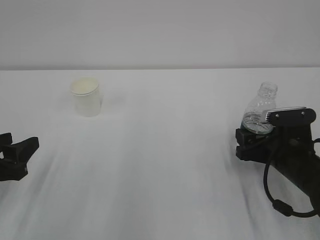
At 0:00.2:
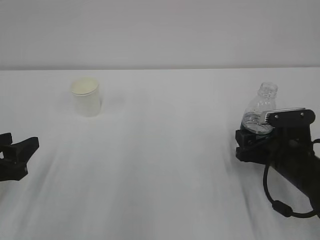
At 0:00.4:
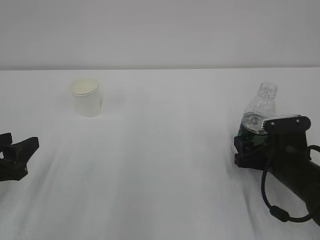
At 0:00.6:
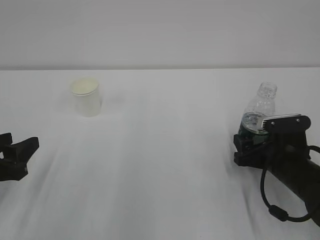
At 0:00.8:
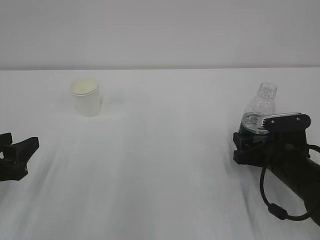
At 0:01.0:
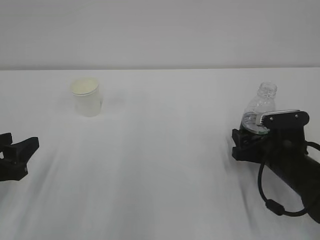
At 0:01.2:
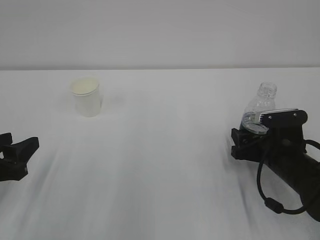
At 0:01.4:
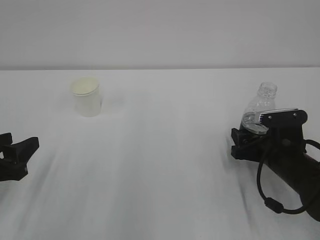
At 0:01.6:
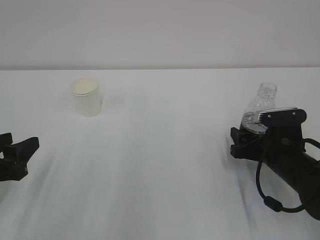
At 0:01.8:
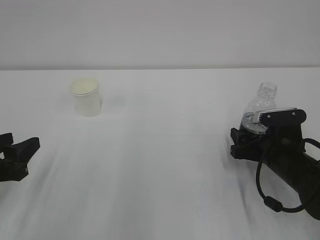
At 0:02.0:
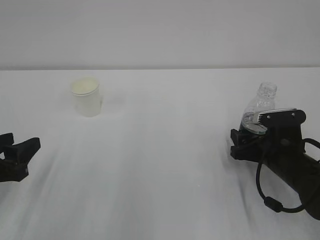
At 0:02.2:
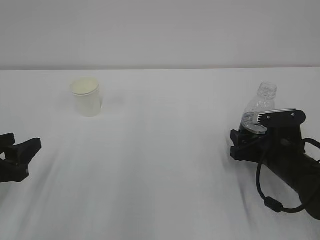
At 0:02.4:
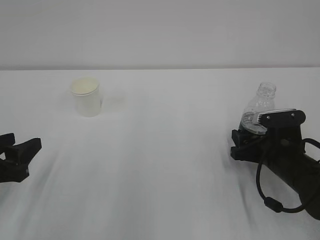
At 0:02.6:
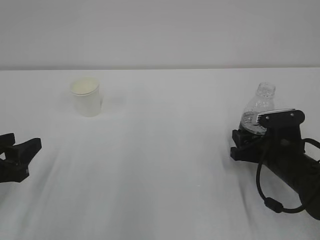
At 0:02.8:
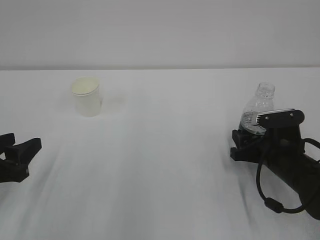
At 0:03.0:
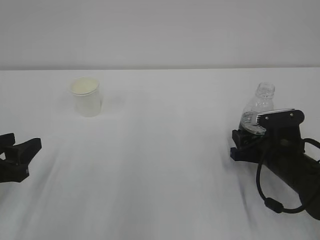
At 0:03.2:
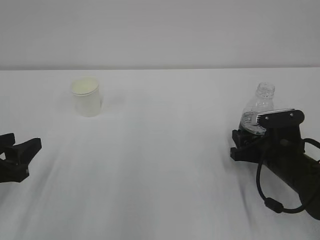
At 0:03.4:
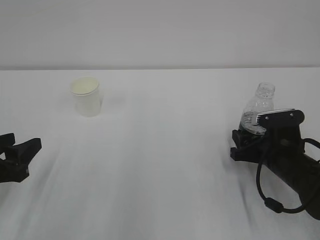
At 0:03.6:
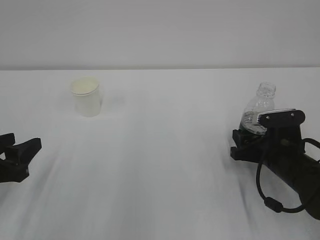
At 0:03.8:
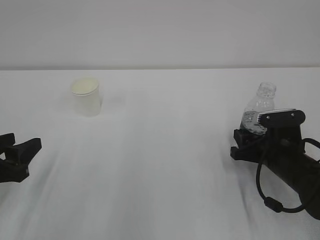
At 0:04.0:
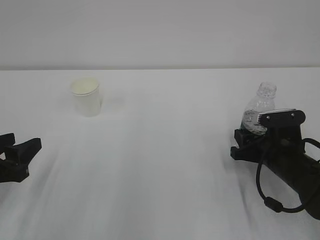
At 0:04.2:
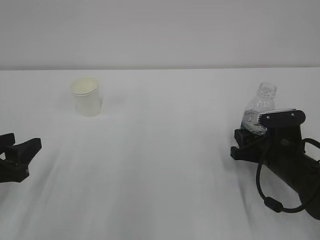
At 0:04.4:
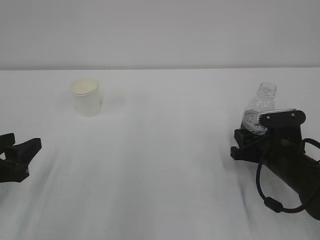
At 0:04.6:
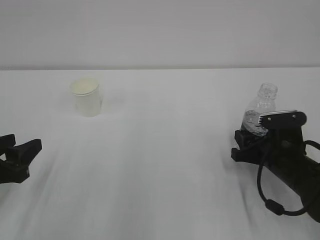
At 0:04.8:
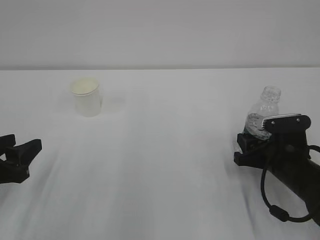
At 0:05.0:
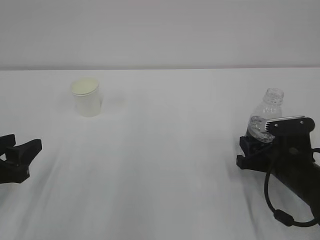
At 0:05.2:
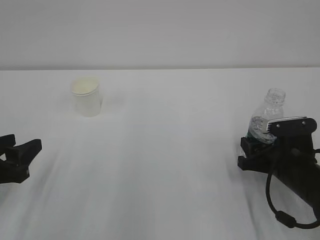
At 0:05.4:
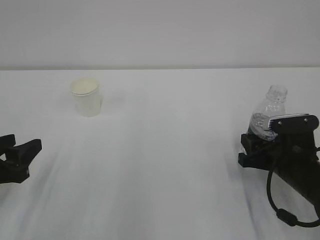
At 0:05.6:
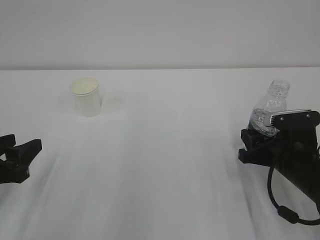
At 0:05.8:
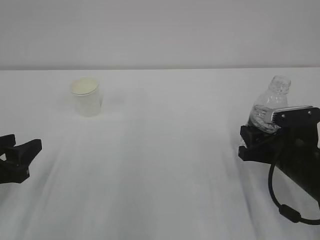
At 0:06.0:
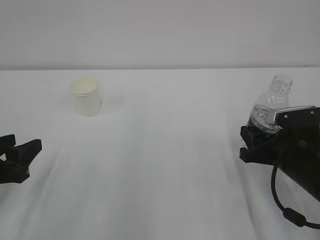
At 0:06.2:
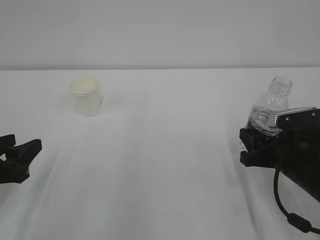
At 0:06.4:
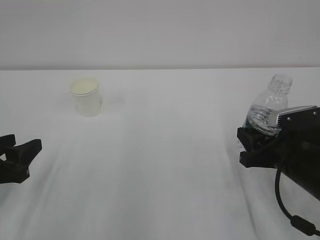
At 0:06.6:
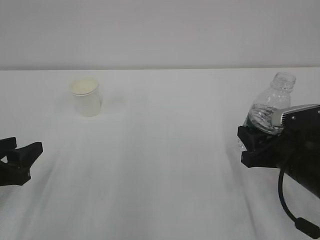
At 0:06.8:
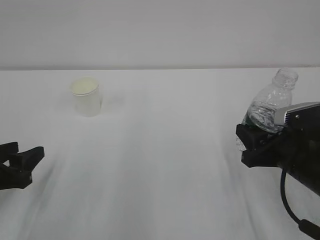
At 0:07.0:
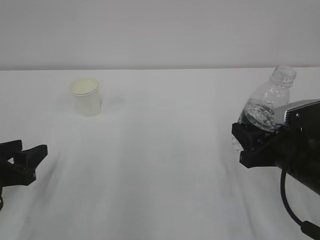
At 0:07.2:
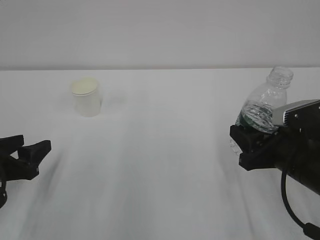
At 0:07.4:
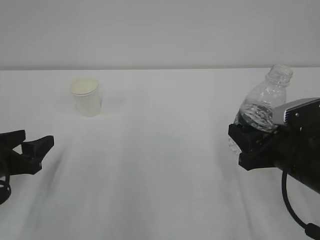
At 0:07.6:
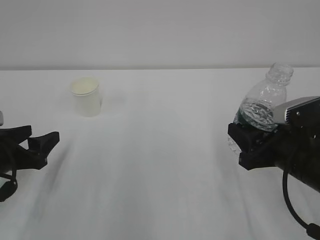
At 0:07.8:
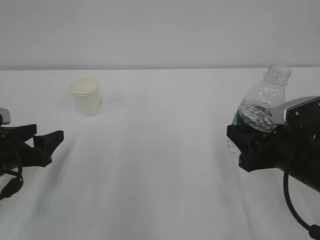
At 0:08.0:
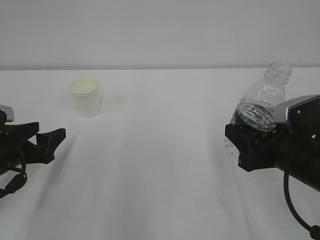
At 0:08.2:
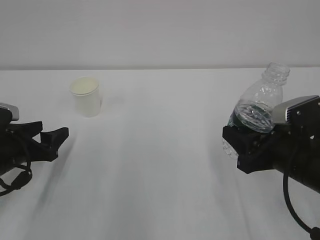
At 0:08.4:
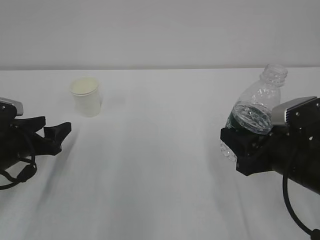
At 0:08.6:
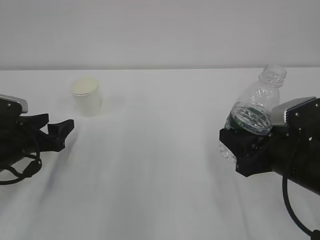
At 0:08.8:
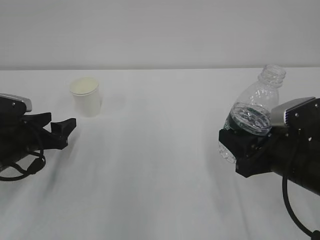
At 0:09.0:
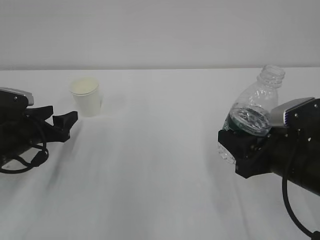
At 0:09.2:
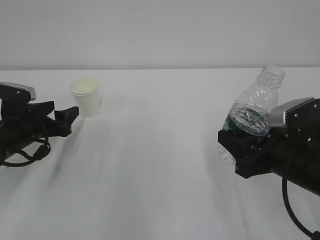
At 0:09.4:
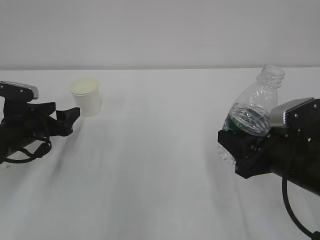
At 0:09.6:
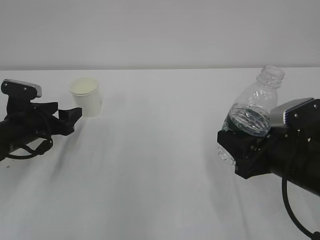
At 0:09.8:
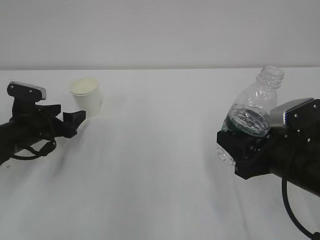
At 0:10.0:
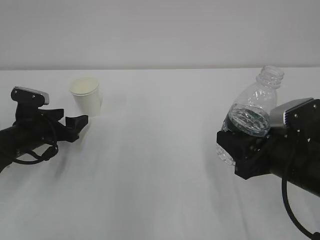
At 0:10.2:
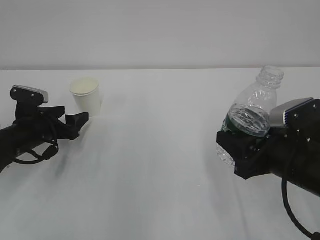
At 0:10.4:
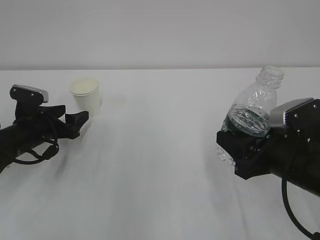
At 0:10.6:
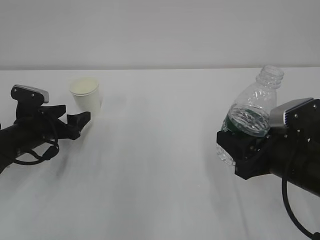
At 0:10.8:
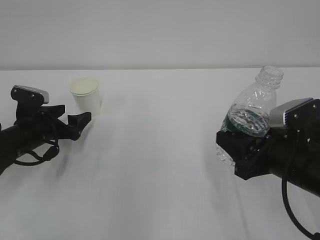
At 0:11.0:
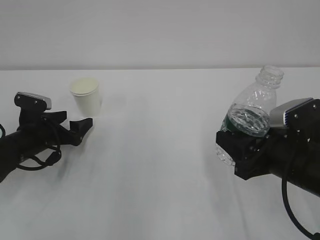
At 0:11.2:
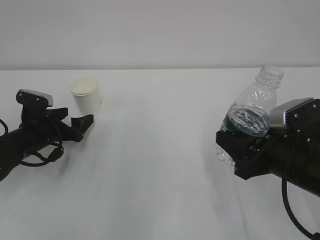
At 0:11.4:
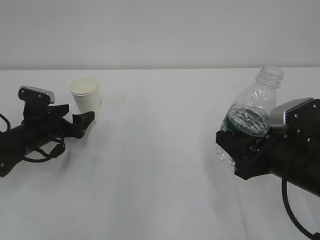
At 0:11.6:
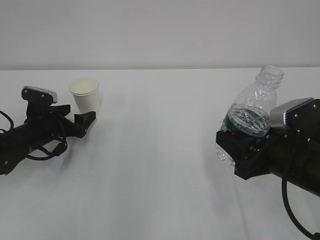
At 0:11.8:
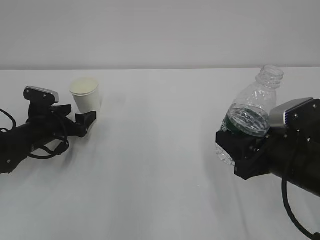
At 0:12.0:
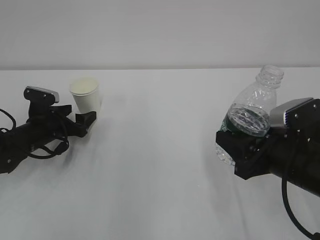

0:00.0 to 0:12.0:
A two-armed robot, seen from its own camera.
0:00.0 to 0:01.6: The grippers move only a little.
0:01.6 to 0:03.0: The right gripper closes its fingers.
0:03.0 to 0:04.4: Neither gripper changes place.
0:04.4 to 0:06.0: The grippers stay close to where they were, moving slightly.
0:06.0 to 0:07.6: The left gripper opens up, while the right gripper moves some 5 cm.
0:07.6 to 0:09.0: The left gripper goes approximately 10 cm forward.
0:09.0 to 0:10.4: The grippers stay close to where they were, moving slightly.
0:10.4 to 0:12.0: The grippers make only small movements.

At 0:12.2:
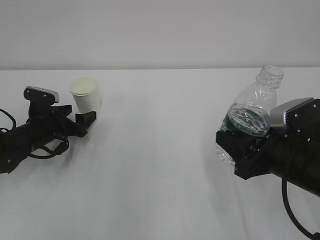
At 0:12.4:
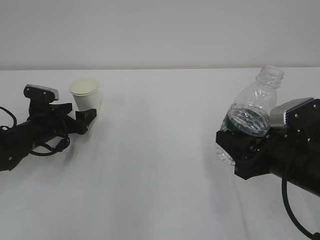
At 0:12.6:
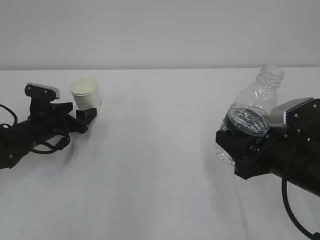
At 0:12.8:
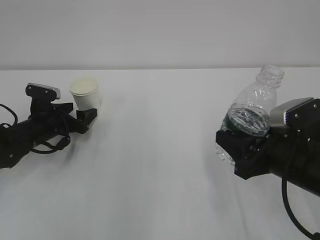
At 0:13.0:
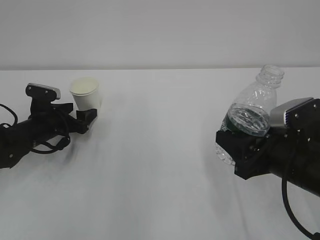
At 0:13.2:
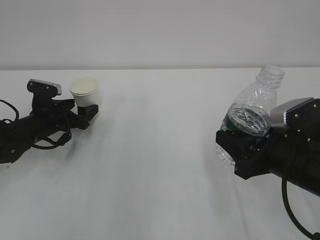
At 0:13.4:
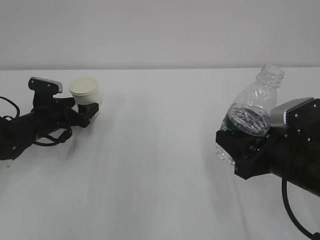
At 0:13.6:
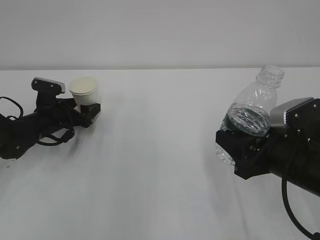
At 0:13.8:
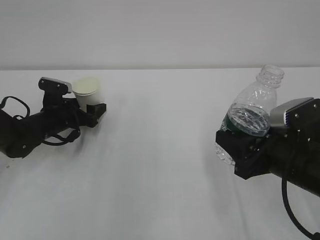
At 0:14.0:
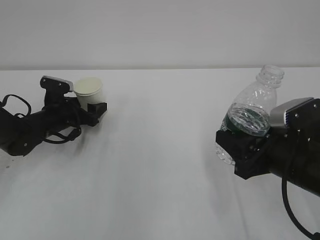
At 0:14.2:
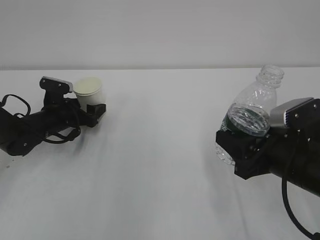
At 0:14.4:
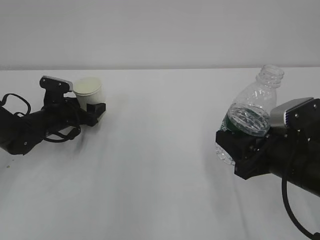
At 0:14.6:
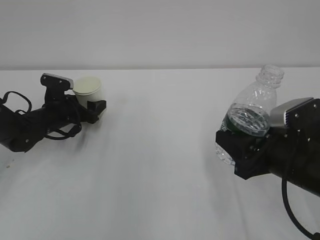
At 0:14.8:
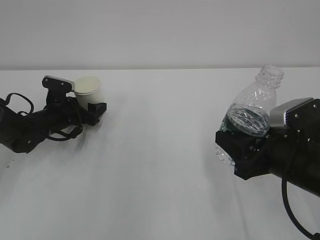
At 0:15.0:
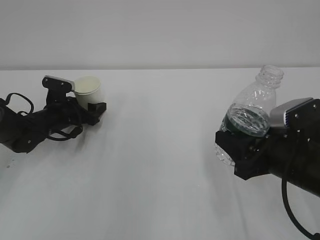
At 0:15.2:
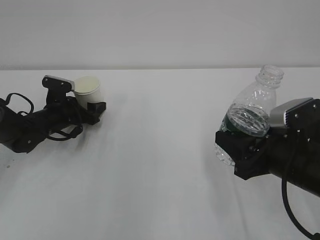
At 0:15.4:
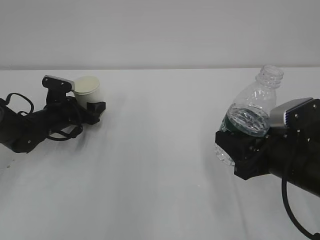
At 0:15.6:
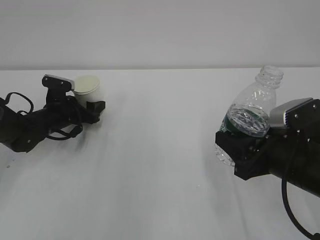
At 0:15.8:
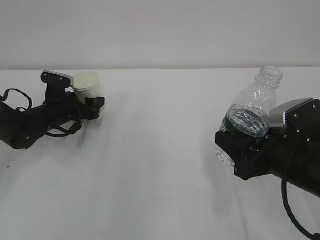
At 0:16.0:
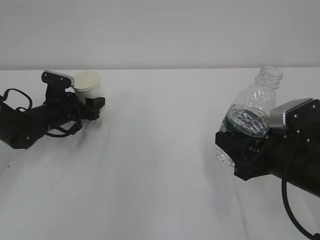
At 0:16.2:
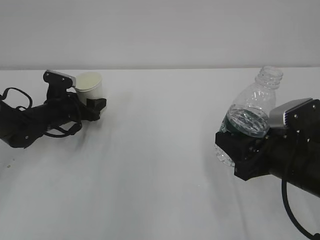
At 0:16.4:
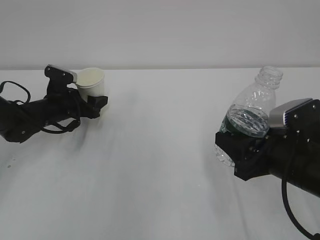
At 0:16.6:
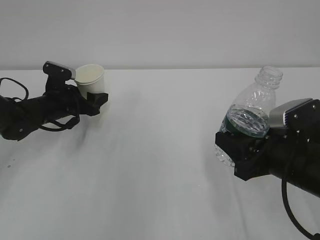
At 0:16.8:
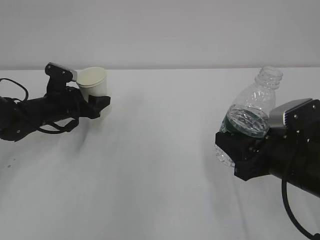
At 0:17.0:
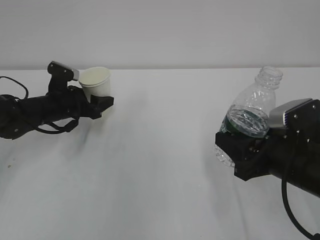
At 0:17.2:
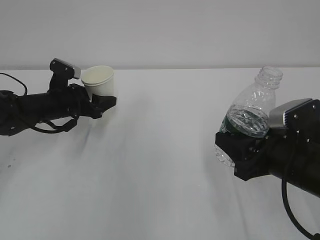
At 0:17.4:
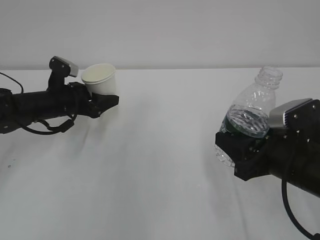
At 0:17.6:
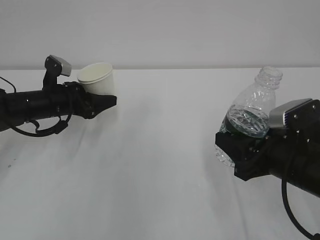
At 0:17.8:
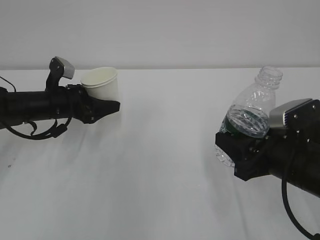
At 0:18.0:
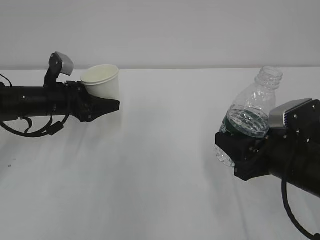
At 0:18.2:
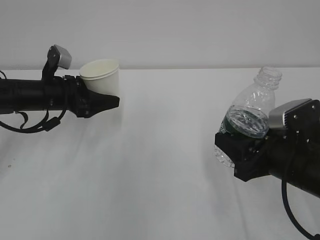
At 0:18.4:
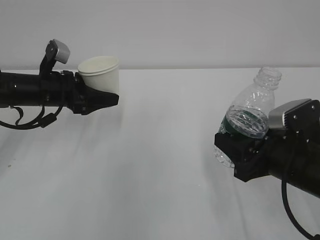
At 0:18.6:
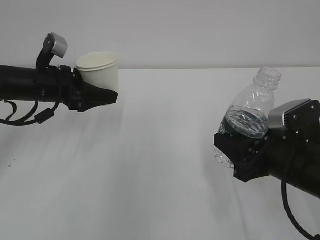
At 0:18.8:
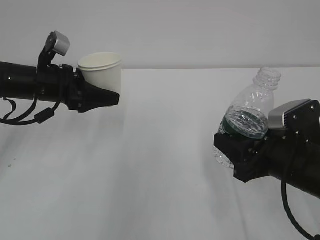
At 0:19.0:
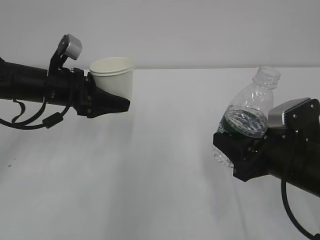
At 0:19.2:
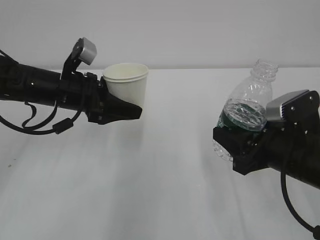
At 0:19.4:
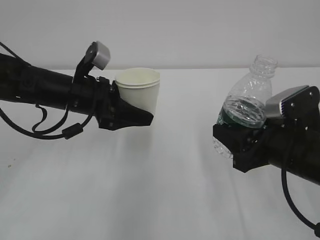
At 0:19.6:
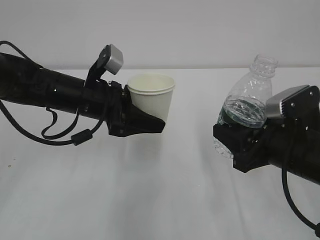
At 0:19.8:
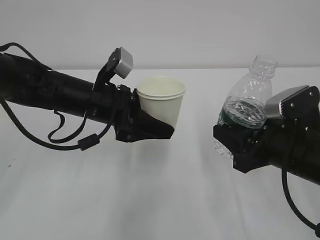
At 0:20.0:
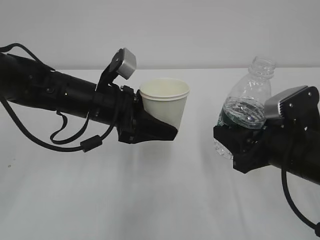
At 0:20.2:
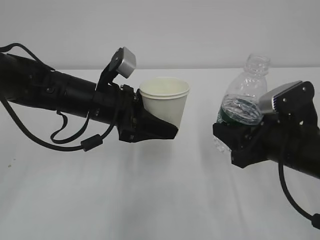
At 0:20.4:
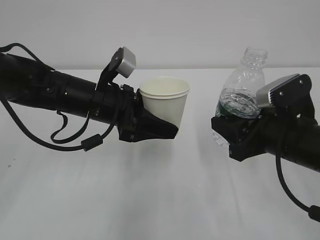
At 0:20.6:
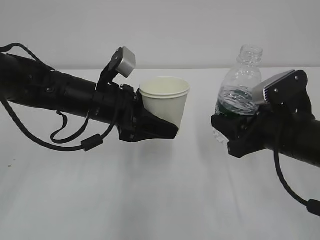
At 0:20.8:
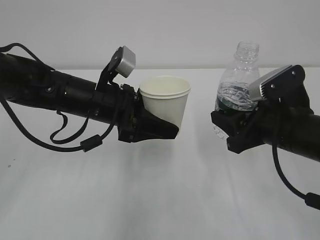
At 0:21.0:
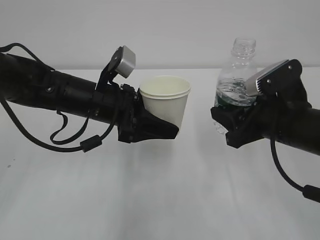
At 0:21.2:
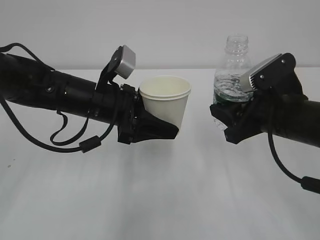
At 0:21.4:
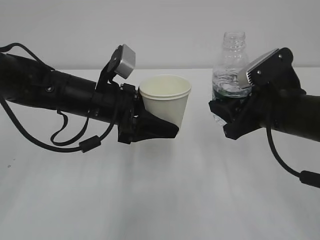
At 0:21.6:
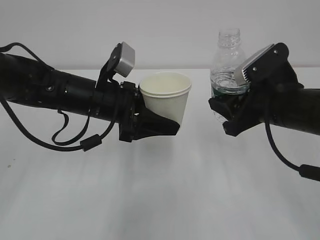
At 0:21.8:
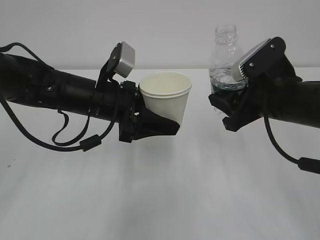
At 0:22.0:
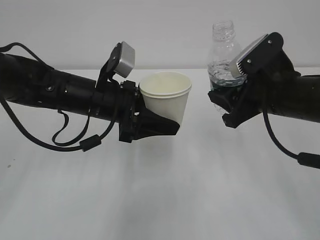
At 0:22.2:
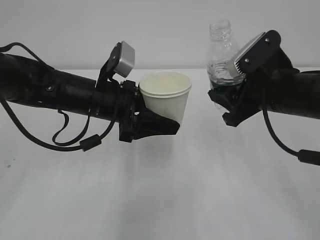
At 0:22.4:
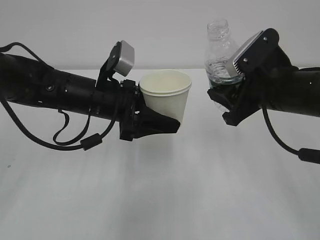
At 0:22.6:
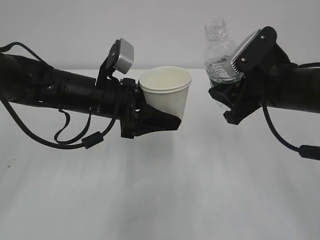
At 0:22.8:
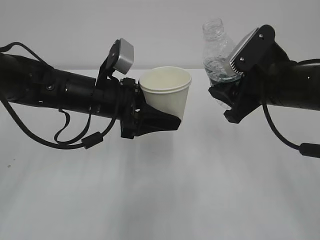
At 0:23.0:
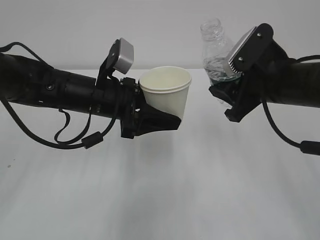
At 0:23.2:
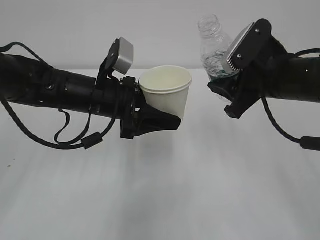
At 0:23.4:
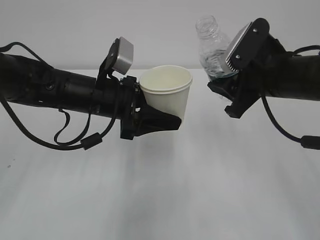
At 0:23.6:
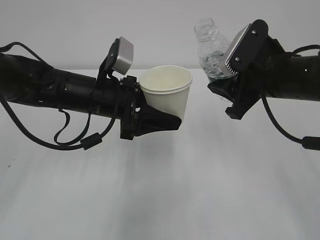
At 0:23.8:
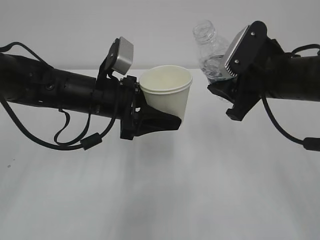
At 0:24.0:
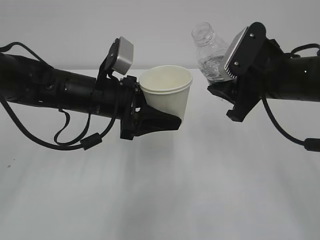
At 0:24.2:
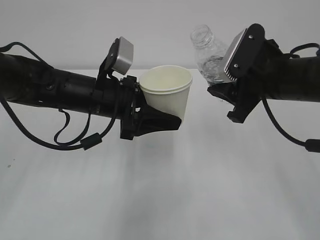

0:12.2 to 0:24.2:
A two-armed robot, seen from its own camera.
0:12.2 to 0:13.8: The grippers stay close to where they were, moving slightly.
0:13.8 to 0:15.2: Both grippers stay put.
0:15.2 to 0:16.6: The left gripper closes.
0:16.6 to 0:18.2: The left gripper shifts roughly 5 cm upward.
0:18.2 to 0:19.8: The left gripper heads to the right and backward, covering about 15 cm.
0:19.8 to 0:21.2: The right gripper ends up roughly 5 cm from where it was.
0:21.2 to 0:22.6: The grippers make only small movements.
0:22.6 to 0:24.2: The grippers move only a little.
